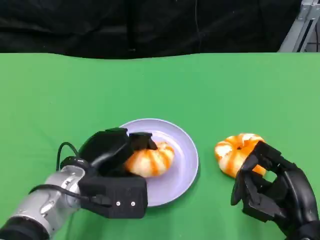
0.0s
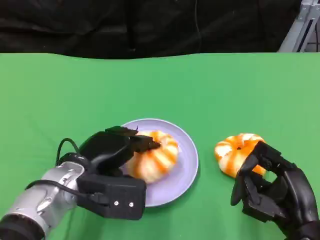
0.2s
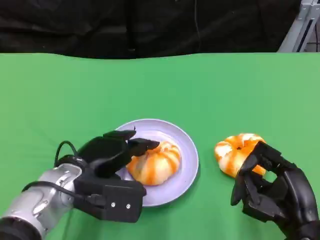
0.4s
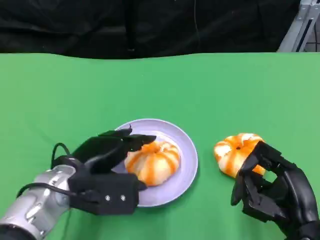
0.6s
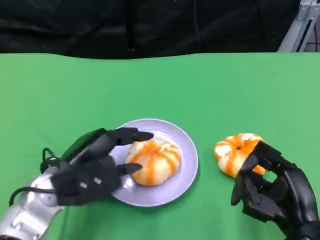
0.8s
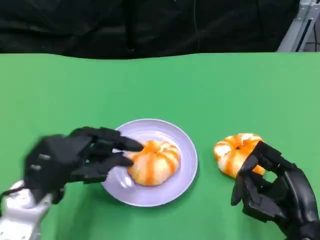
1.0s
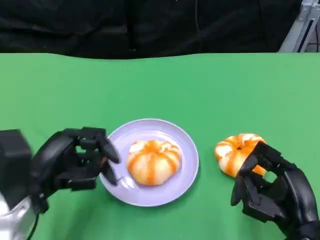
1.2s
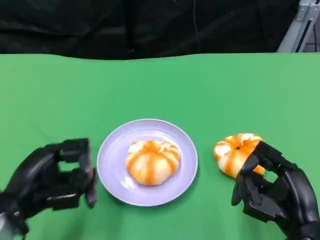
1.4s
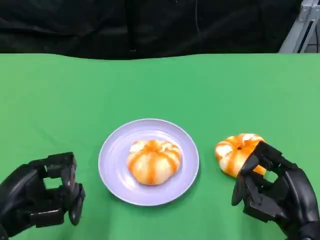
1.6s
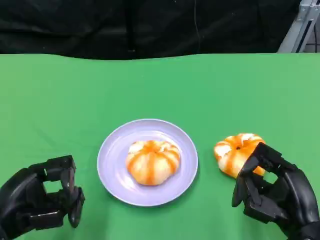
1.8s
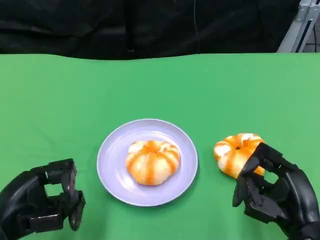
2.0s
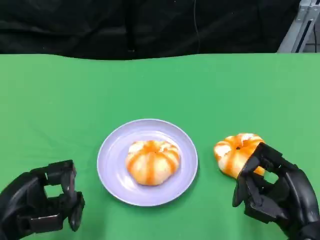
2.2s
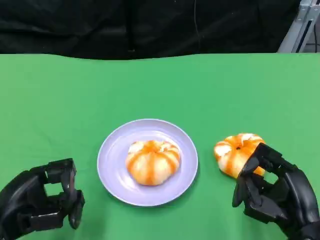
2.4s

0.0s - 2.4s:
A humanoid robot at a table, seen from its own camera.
Task of the whole recording: Grasp the bread from the table and place it into the plate.
0.0s - 1.2s: The left hand goes about 10 cm to the left.
1.2s - 2.4s: The left hand moves about 5 cm.

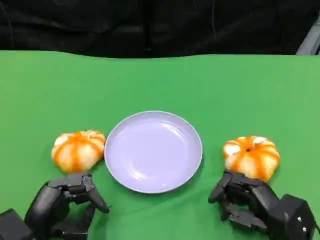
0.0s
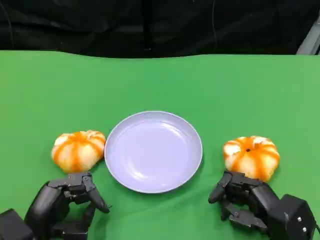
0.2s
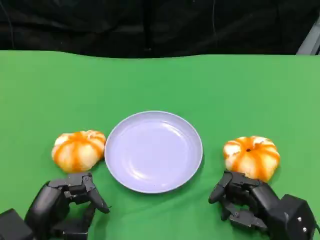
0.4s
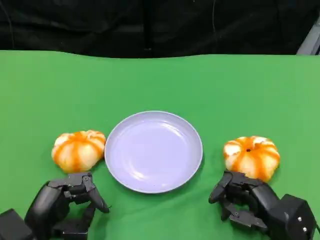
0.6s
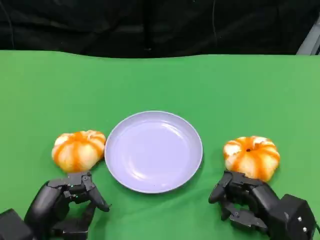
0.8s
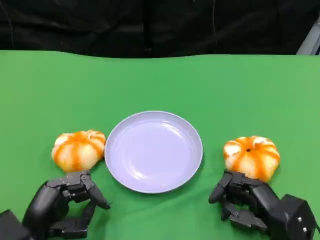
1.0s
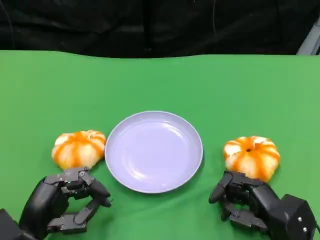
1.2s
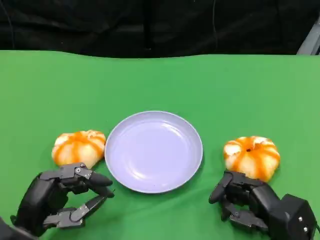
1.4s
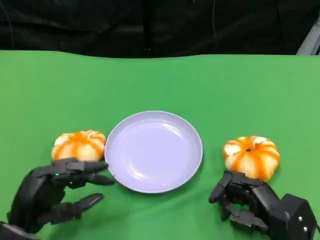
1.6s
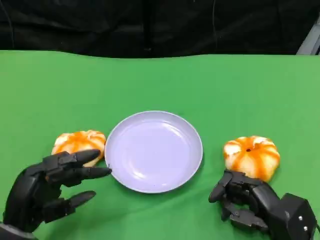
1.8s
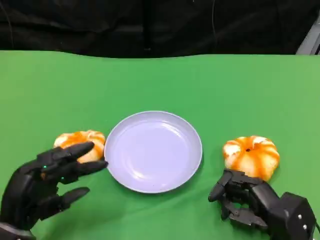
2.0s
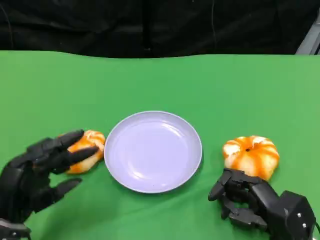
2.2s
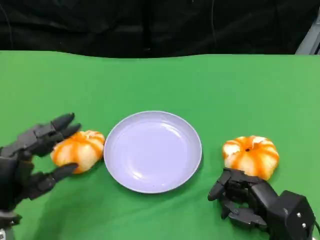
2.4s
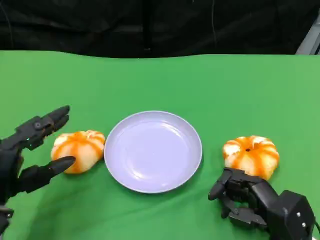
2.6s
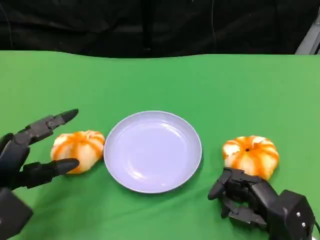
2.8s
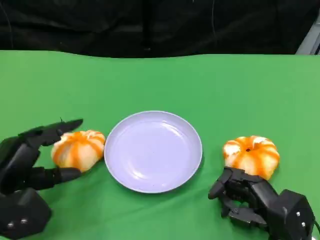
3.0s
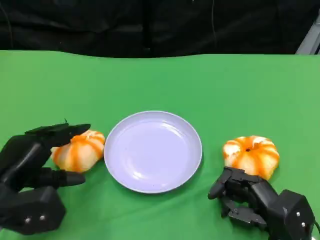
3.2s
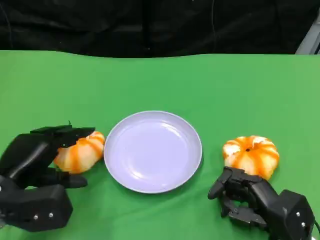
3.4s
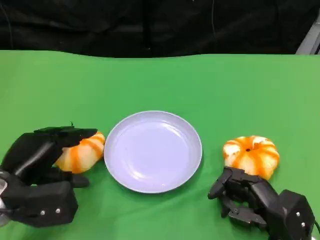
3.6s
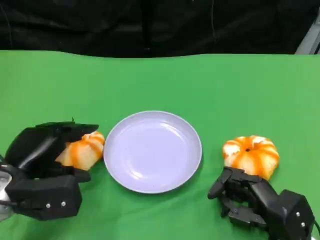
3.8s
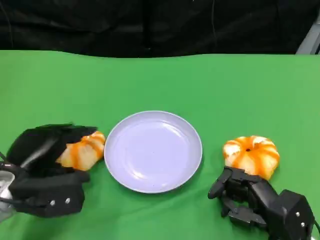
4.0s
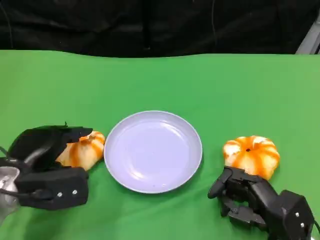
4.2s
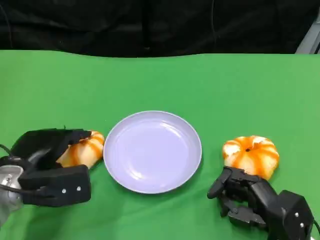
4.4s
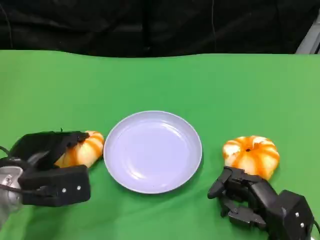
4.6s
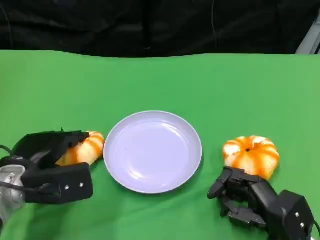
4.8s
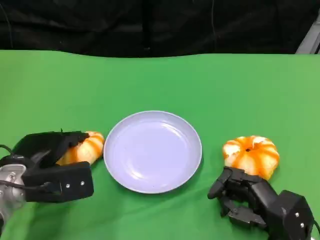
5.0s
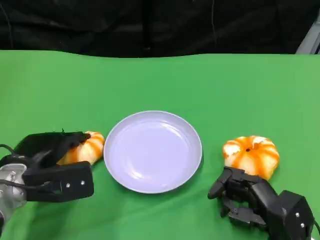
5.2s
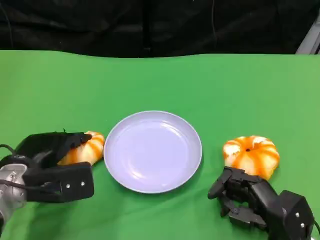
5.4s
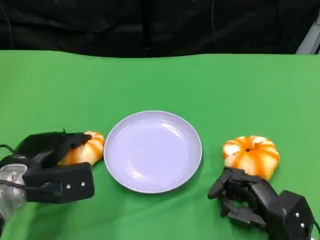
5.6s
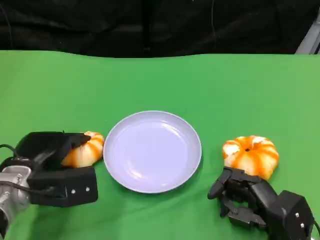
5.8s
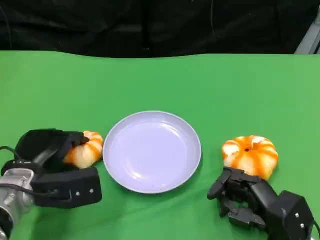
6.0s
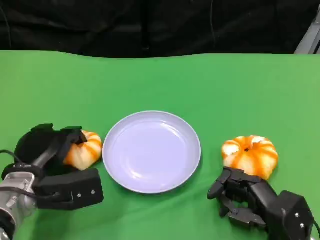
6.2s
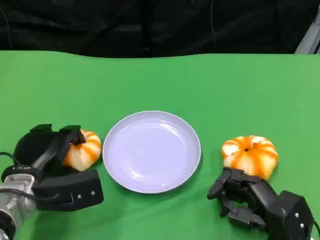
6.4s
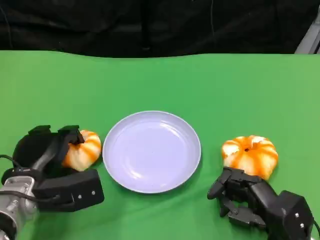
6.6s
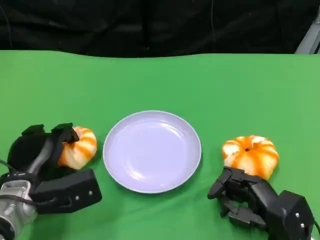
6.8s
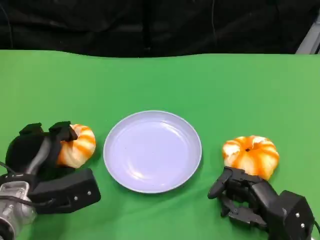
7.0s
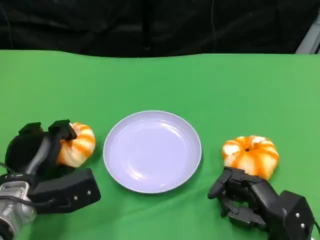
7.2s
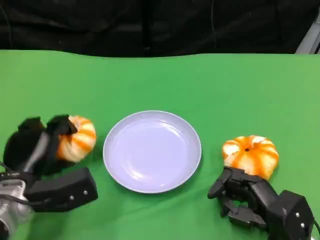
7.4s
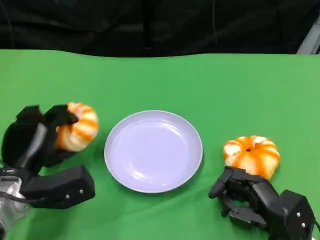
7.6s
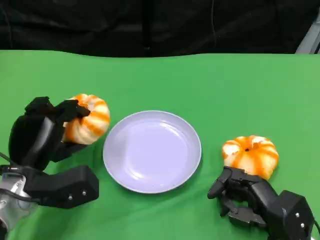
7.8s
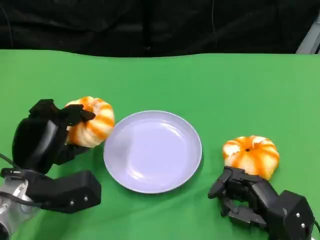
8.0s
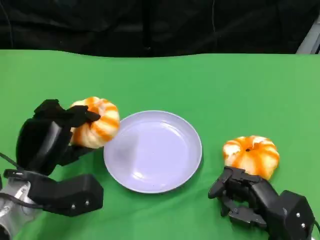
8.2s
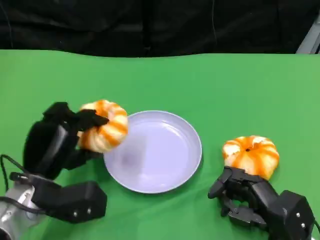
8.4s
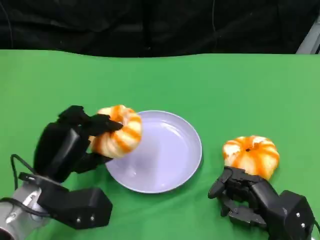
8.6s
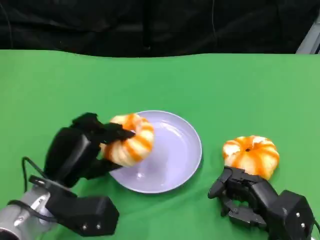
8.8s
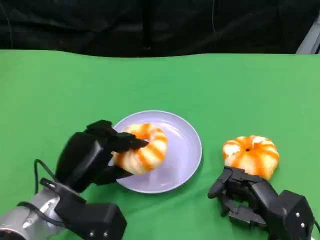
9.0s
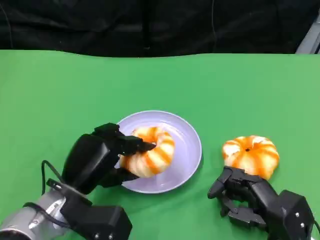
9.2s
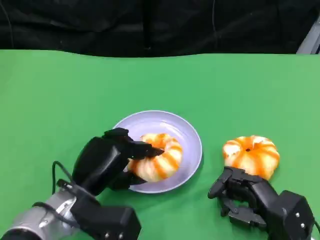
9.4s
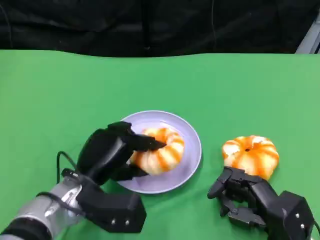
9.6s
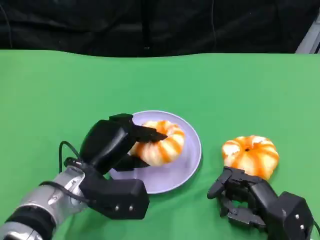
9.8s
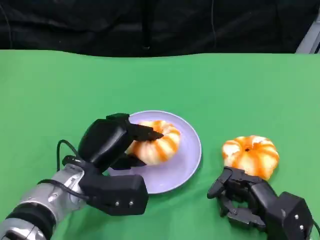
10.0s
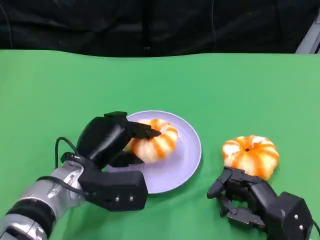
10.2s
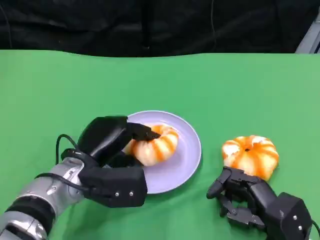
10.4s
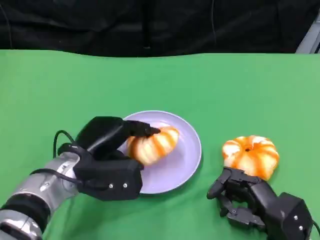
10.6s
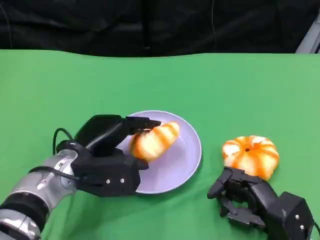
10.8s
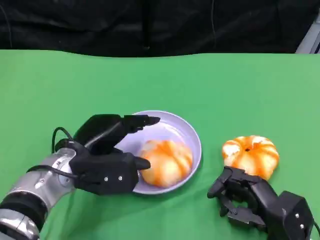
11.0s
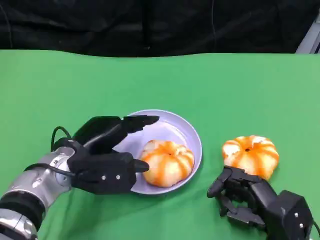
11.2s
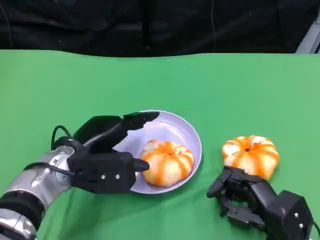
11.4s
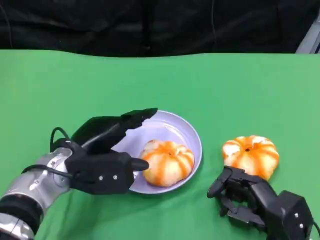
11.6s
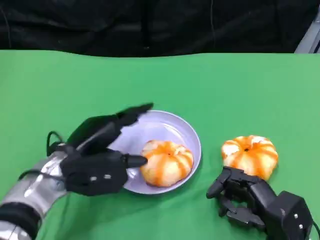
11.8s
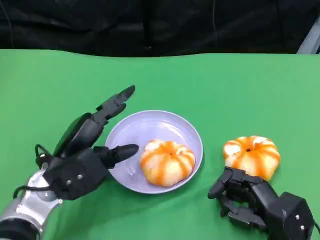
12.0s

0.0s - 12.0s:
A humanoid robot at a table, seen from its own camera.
Task of the whole recording: Grasp the bread from the table and place it into the plate.
0.0s - 1.6s: The hands make only small movements.
1.6s - 3.0s: The left hand shifts by roughly 5 cm.
3.0s - 4.4s: The left hand shifts by roughly 5 cm.
4.4s - 6.0s: The hands stay close to where they were, moving slightly.
7.6s - 9.0s: The left hand shifts approximately 5 cm to the right.
9.0s - 10.4s: The hands make only small movements.

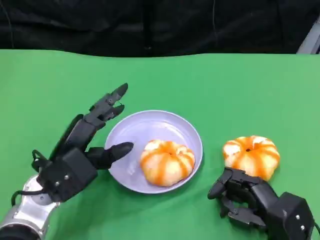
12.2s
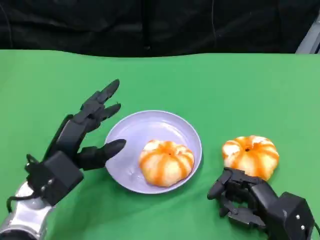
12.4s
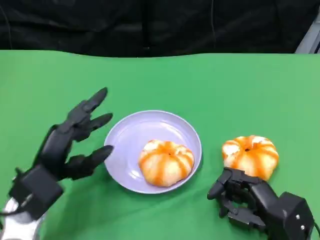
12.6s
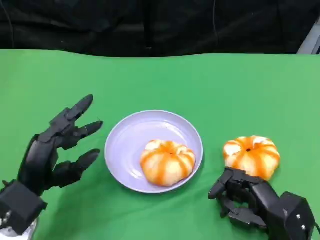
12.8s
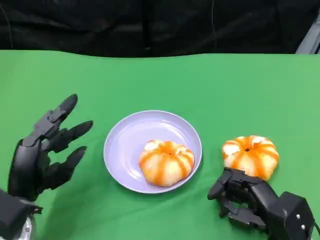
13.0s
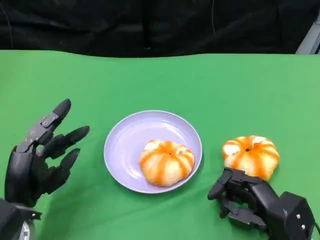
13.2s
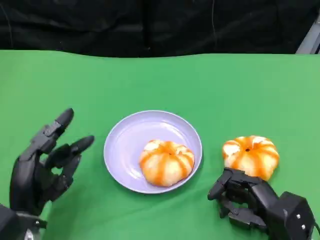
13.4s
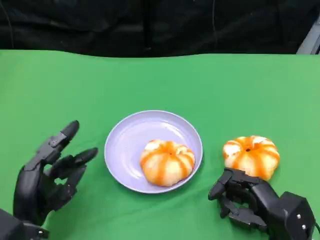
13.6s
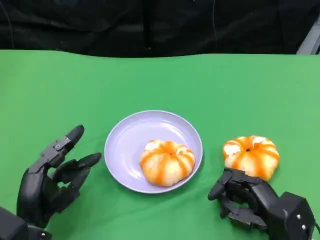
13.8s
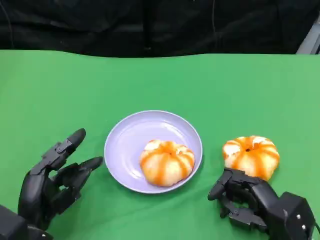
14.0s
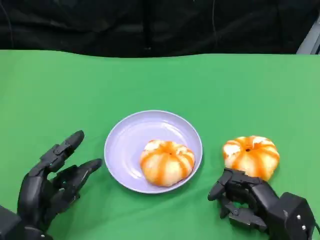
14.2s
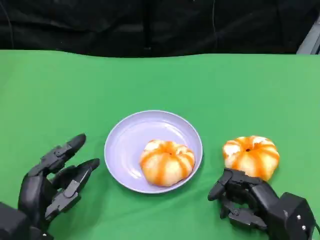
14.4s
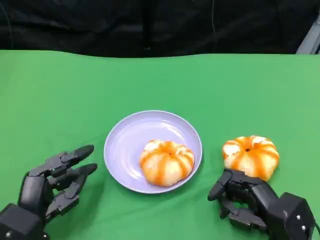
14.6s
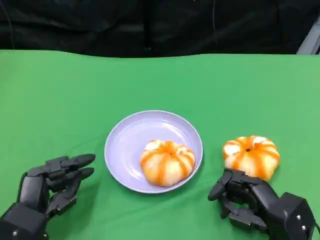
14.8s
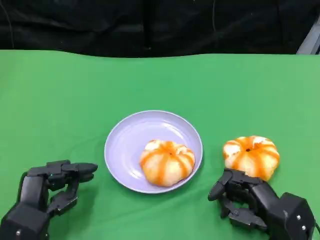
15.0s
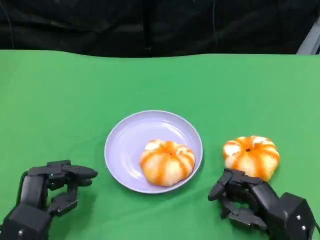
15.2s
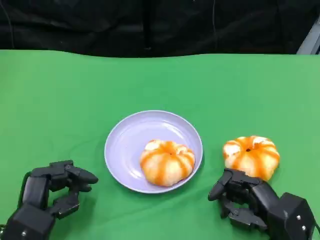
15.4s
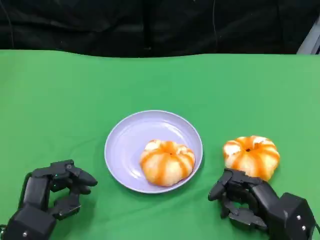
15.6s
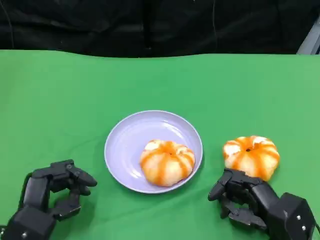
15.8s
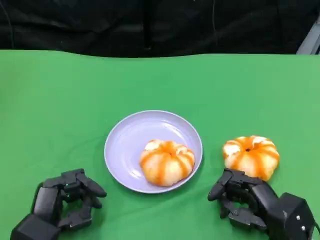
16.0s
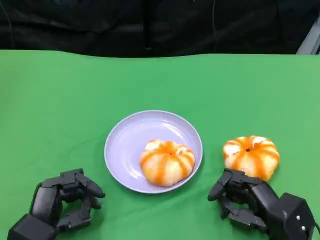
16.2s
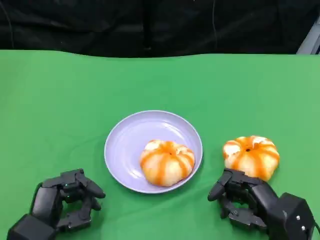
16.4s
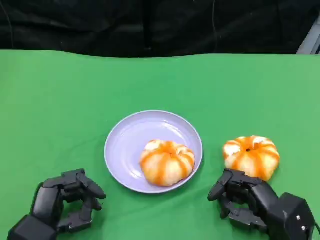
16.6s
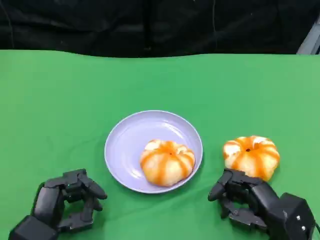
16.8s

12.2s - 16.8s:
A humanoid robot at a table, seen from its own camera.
Task of the whole recording: Grasp the bread from the table and place it into the plate.
12.2s - 13.8s: The left hand travels backward and downward by about 10 cm.
13.8s - 16.8s: The hands stay close to where they were, moving slightly.

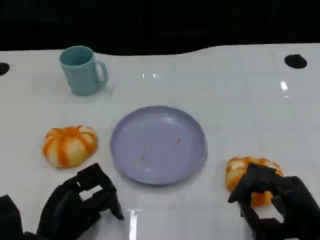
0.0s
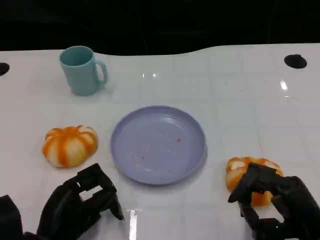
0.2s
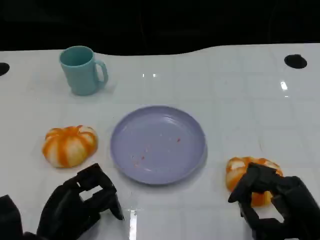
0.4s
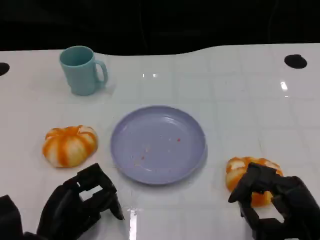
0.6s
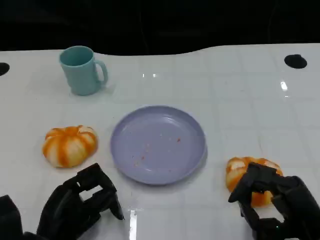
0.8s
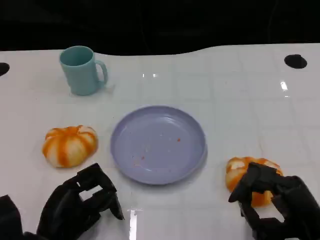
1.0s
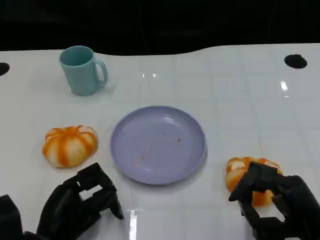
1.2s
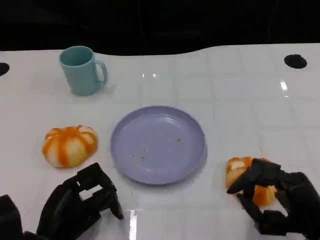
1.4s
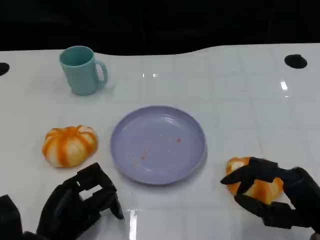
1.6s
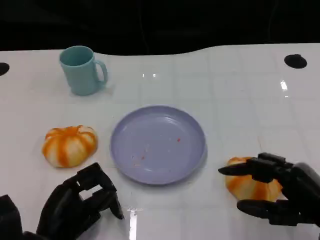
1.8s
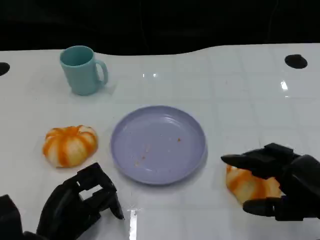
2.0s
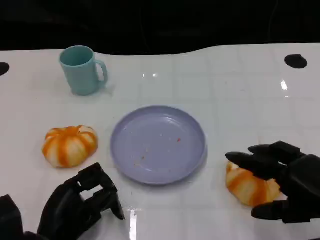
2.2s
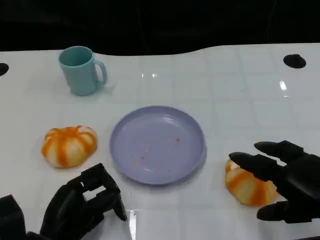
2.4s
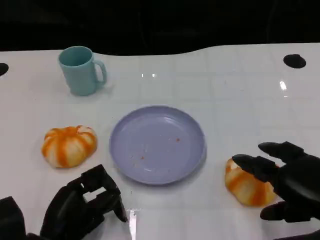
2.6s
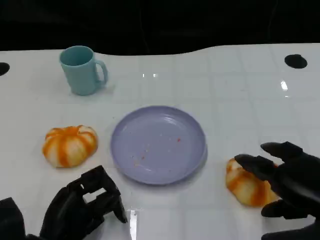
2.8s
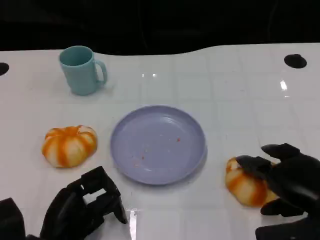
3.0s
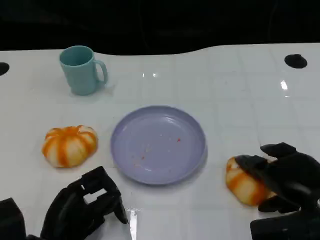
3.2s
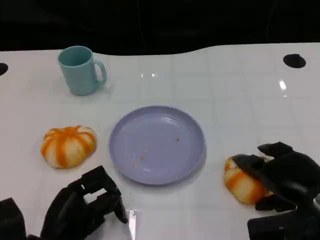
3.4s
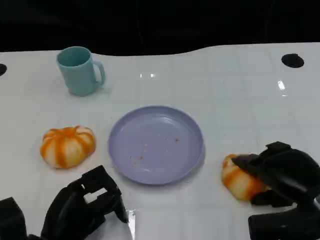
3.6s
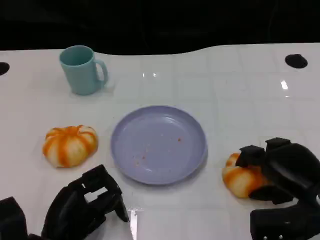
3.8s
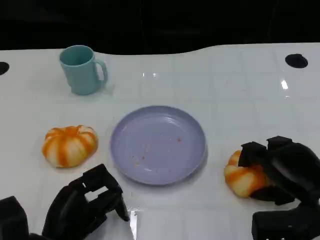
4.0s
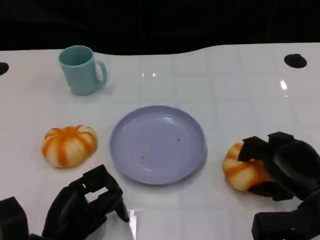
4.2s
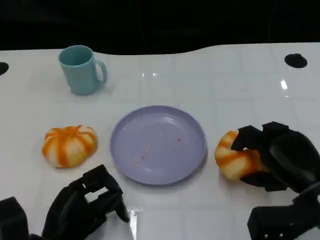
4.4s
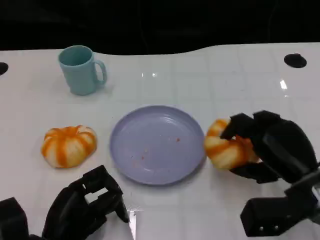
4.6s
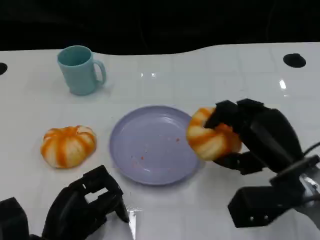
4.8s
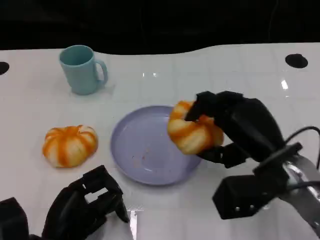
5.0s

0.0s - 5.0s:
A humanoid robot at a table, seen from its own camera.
Task of the whole recording: Grasp the bread from the table and place it into the plate.
0.0s - 1.6s: There are only small adjustments of the hands.
3.4s - 5.0s: The right hand heads to the left, covering roughly 5 cm.
